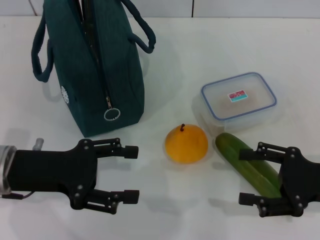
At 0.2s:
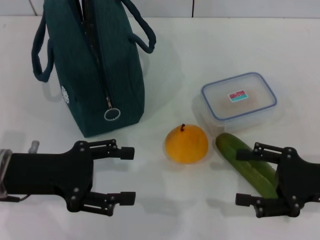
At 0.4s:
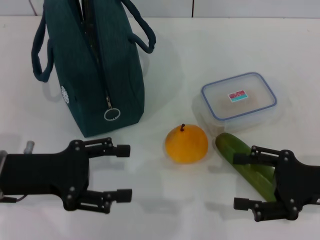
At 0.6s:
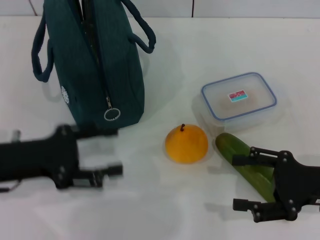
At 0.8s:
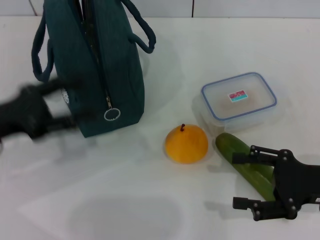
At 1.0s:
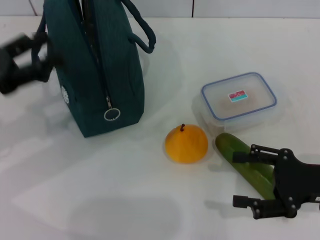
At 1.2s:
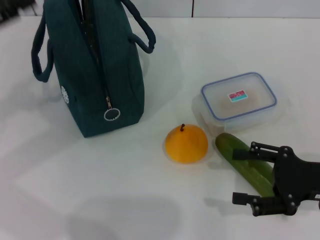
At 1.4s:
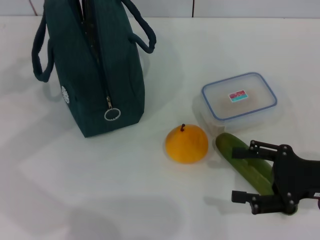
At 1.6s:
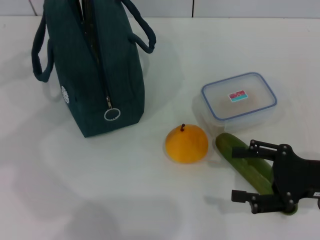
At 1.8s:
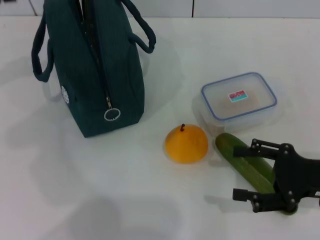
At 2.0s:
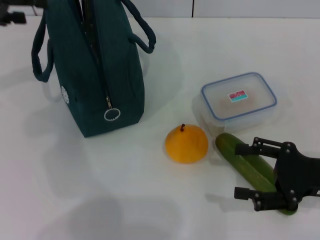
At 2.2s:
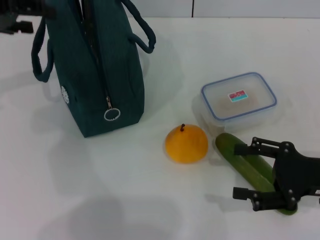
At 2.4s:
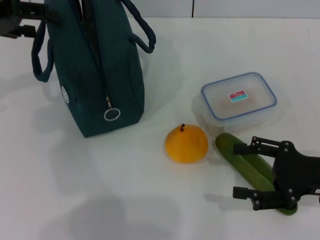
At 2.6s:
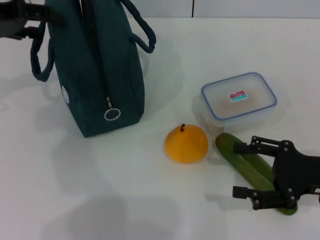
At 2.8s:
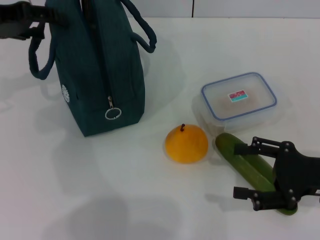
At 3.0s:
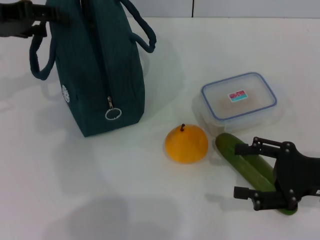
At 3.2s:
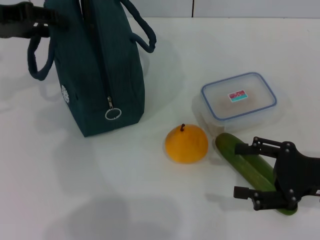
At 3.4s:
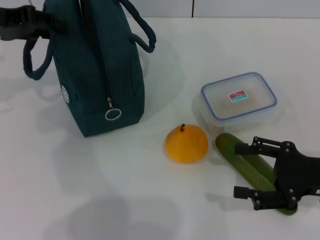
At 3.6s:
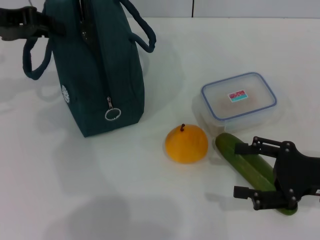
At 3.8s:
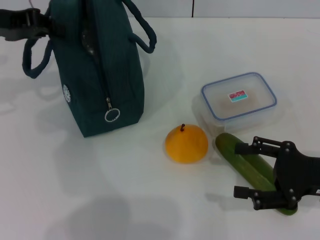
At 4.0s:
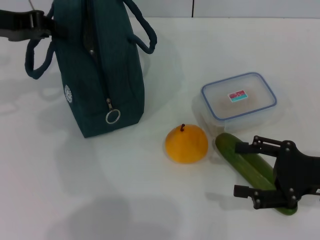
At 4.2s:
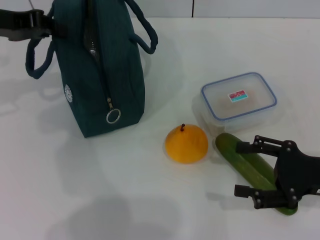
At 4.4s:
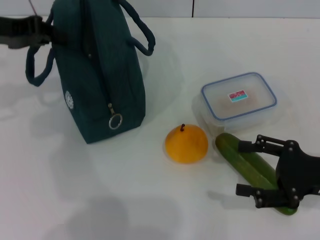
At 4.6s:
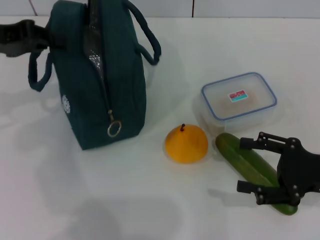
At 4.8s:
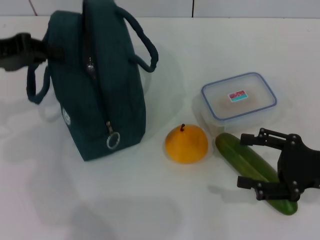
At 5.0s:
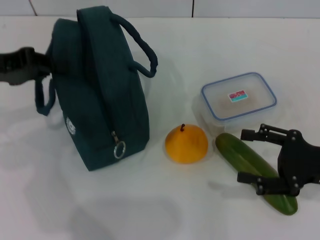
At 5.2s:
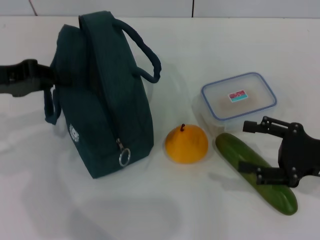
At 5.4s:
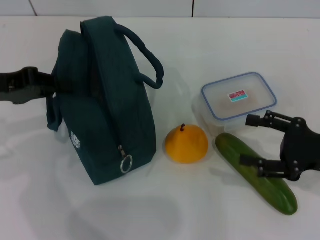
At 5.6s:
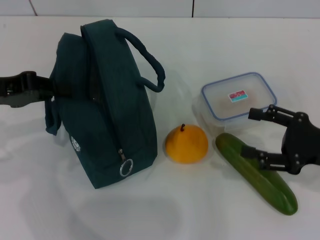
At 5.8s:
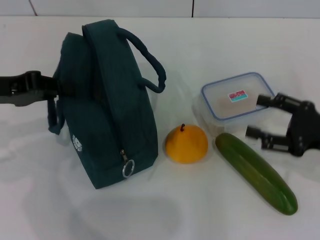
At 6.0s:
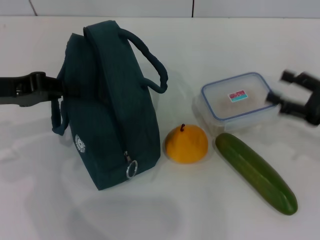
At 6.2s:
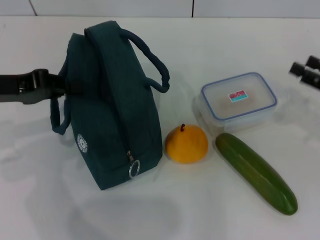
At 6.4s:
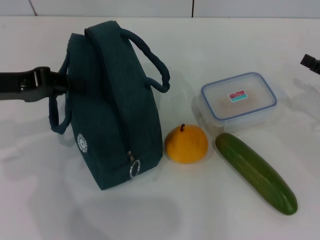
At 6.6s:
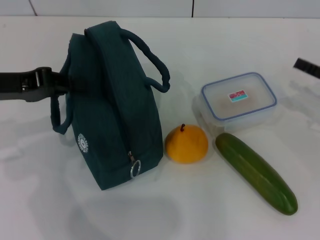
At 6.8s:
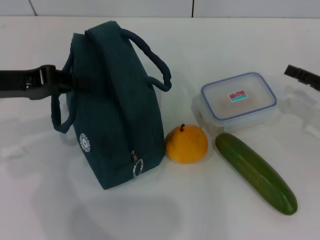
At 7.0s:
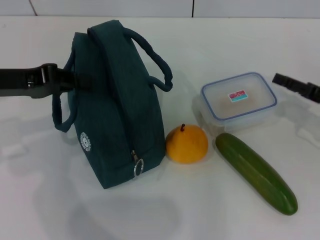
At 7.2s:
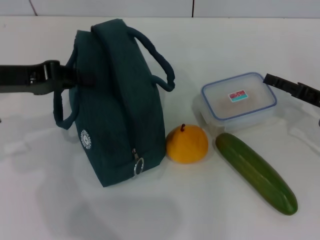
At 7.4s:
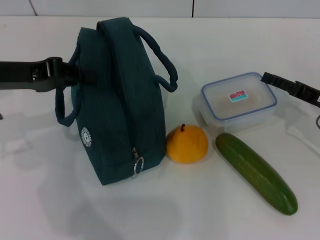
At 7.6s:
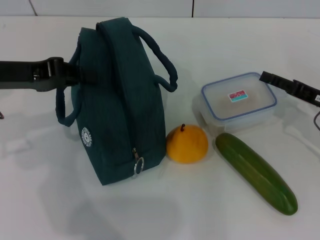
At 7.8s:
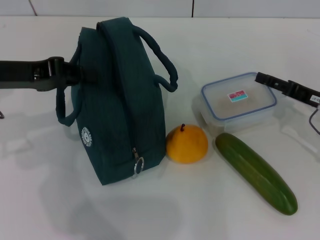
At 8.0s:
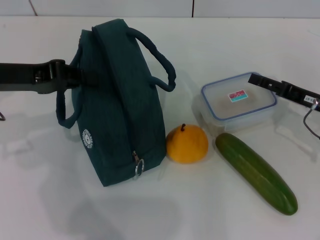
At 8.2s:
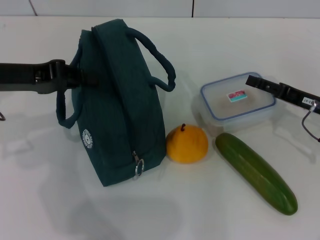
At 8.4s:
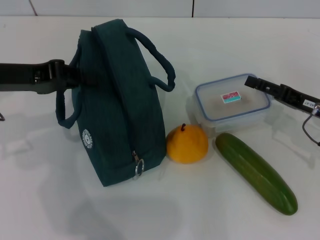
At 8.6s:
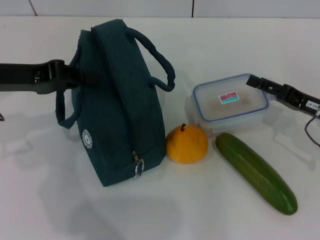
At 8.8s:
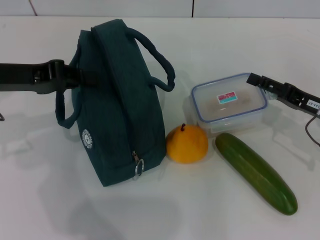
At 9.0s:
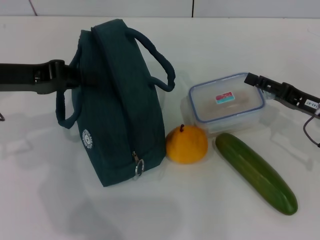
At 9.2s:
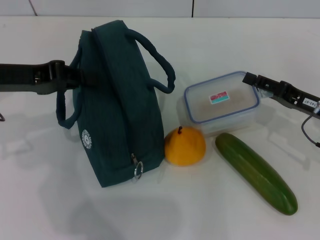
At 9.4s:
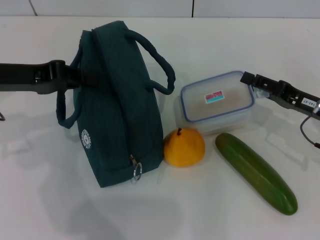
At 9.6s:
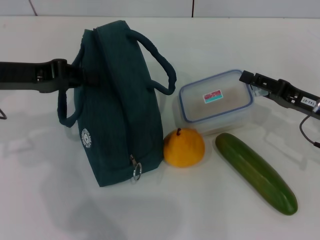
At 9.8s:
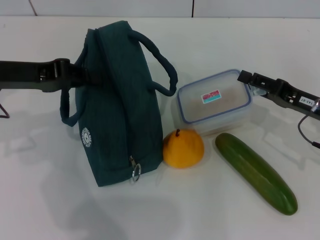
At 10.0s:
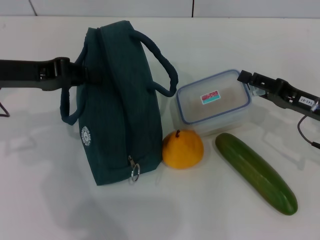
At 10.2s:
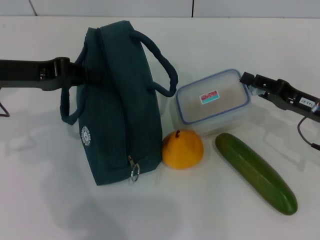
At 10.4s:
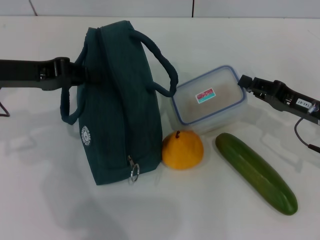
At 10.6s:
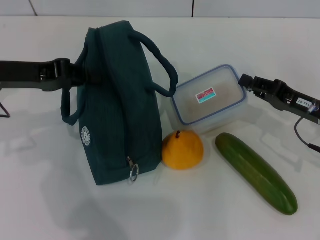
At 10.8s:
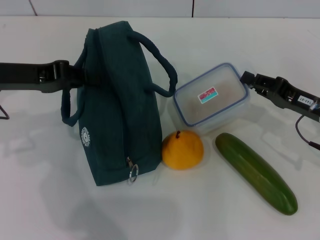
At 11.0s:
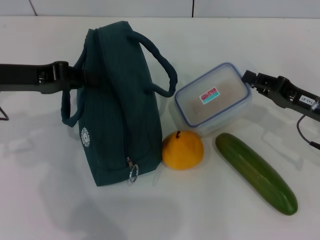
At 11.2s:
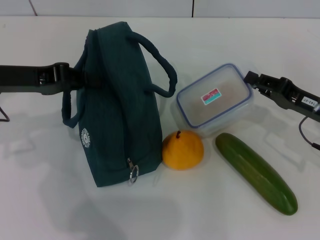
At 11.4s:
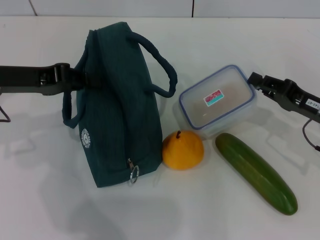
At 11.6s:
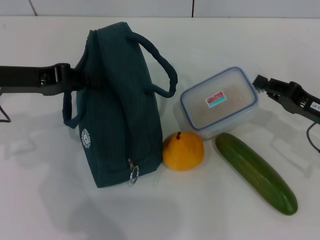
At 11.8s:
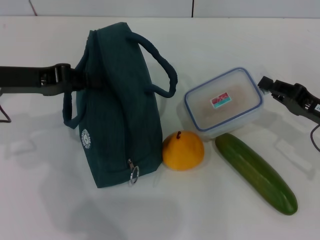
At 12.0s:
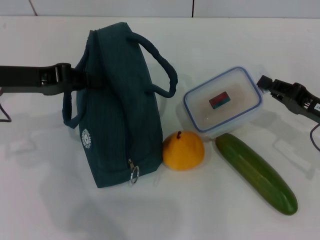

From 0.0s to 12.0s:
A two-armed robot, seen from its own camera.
Step, from 0.0s to 4.0s: Hold the lunch bag with your left hand.
Step, from 4.2s to 10.6s: Pick up the lunch box with your right hand.
From 0.0s to 1.6s: The left gripper is displaced upward, to the left and forward by about 20 cm.
From 1.6s to 3.0s: The left gripper moves approximately 5 cm.
From 3.0s to 4.4s: The left gripper closes its fingers.
From 4.4s to 6.0s: The right gripper ends up some 5 cm from where it was, while the left gripper heads backward, covering approximately 5 cm.
From 6.0s to 7.6s: The right gripper ends up some 5 cm from where it was.
From 7.6s to 9.0s: The grippers stay close to where they were, moving slightly.
From 9.0s to 10.4s: The right gripper closes.
From 10.4s to 12.0s: The grippers make only small movements.

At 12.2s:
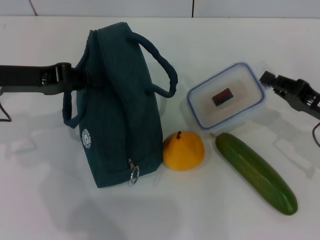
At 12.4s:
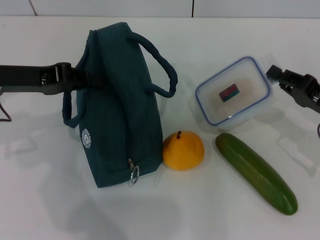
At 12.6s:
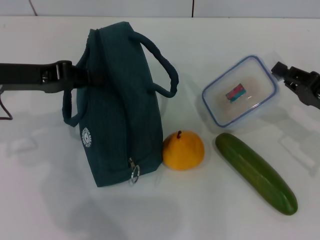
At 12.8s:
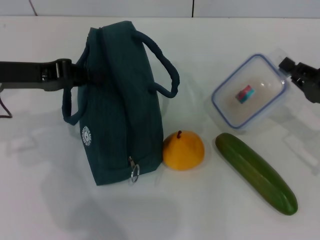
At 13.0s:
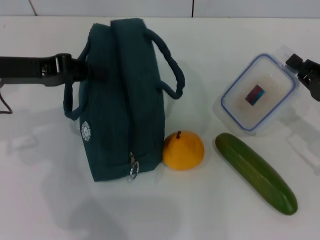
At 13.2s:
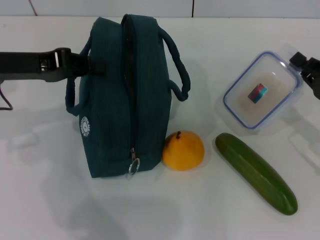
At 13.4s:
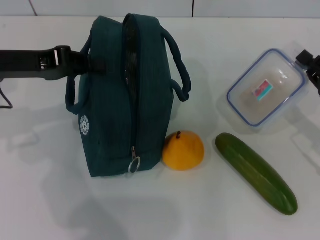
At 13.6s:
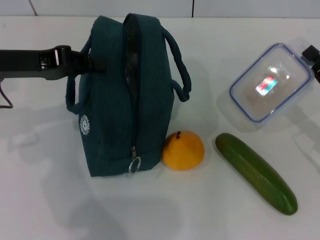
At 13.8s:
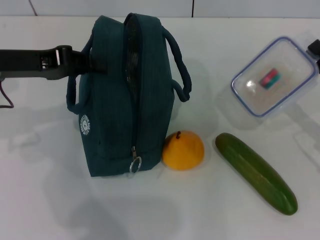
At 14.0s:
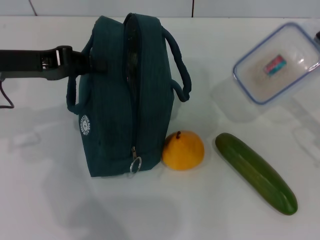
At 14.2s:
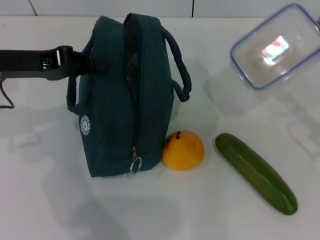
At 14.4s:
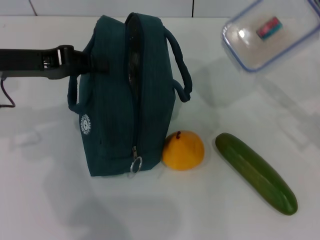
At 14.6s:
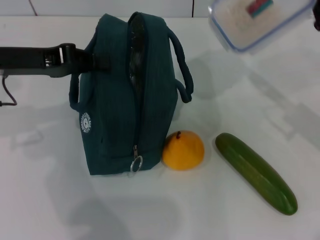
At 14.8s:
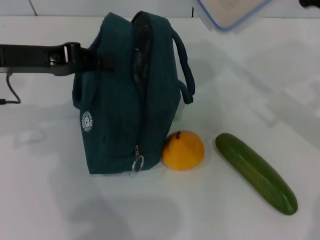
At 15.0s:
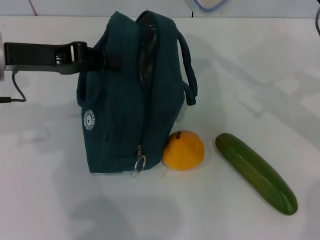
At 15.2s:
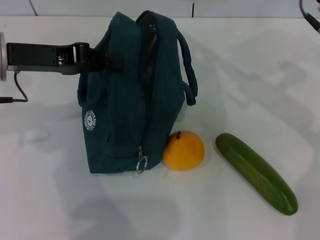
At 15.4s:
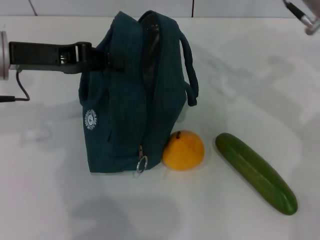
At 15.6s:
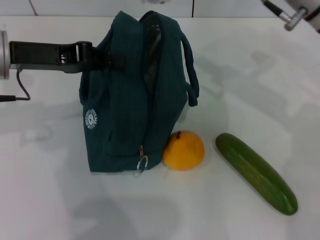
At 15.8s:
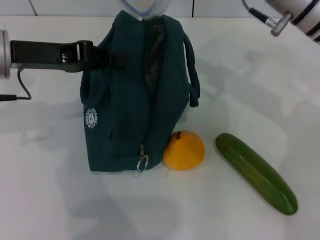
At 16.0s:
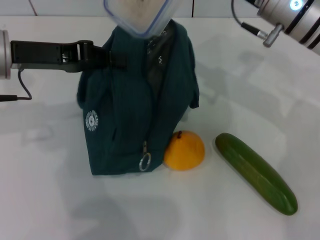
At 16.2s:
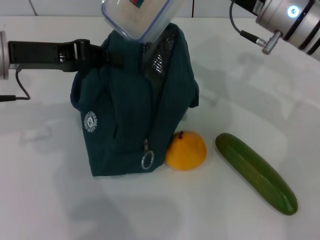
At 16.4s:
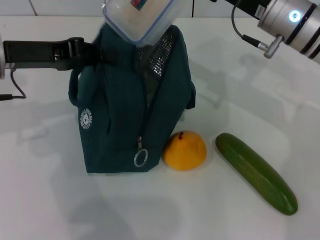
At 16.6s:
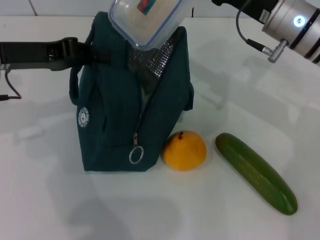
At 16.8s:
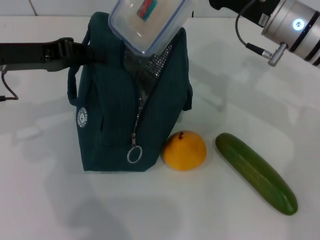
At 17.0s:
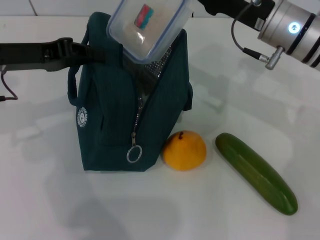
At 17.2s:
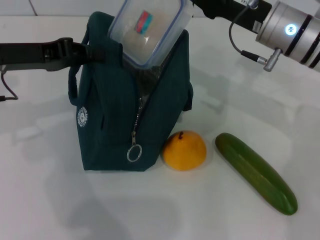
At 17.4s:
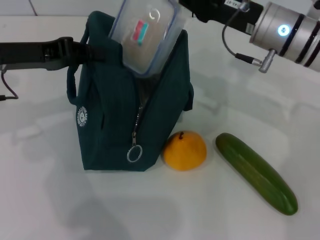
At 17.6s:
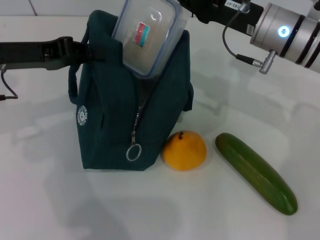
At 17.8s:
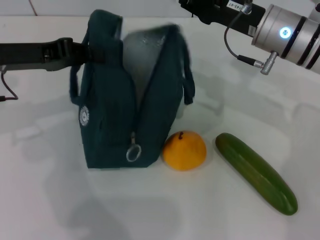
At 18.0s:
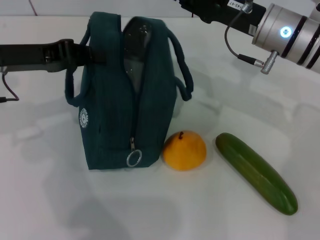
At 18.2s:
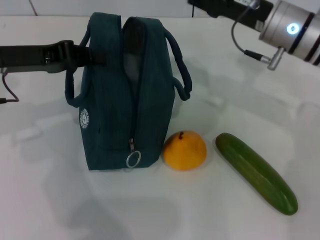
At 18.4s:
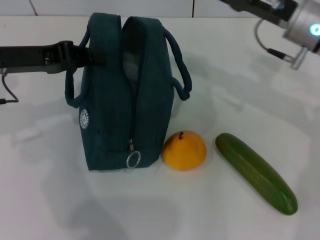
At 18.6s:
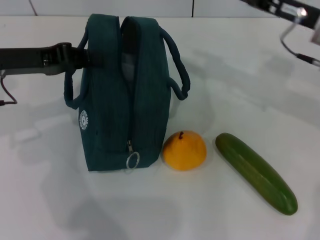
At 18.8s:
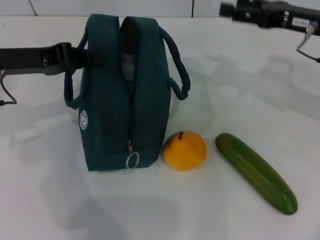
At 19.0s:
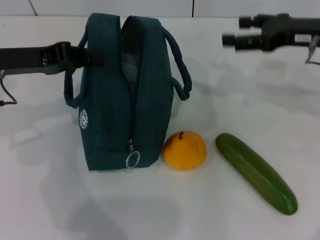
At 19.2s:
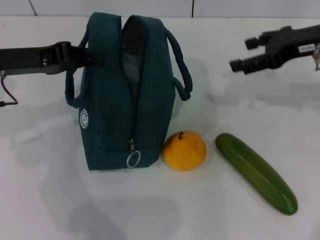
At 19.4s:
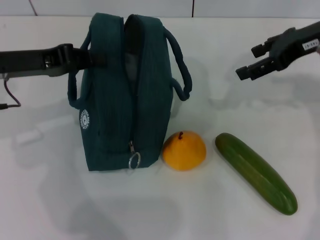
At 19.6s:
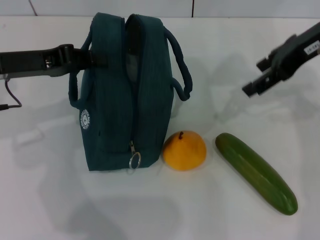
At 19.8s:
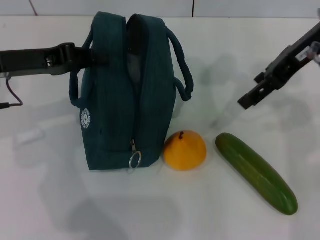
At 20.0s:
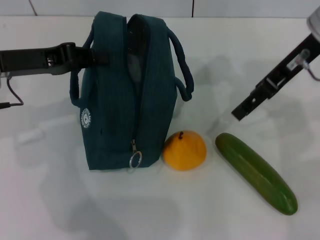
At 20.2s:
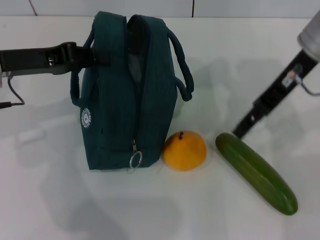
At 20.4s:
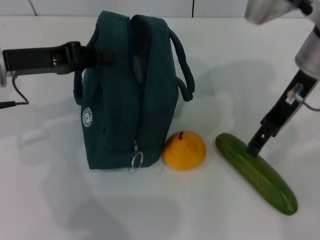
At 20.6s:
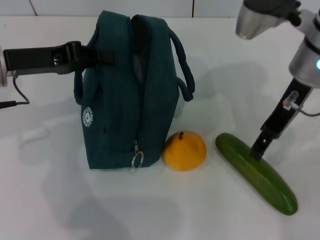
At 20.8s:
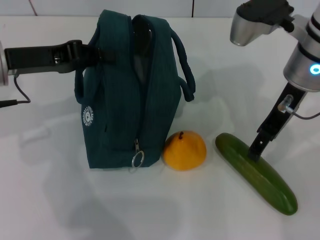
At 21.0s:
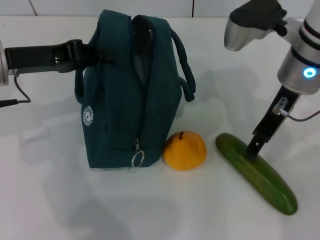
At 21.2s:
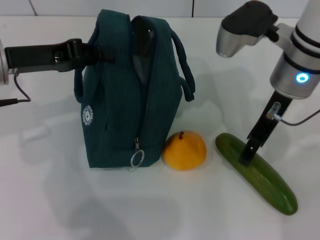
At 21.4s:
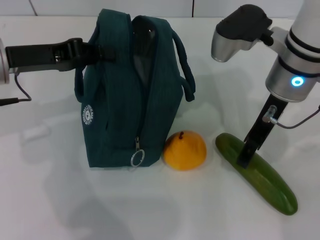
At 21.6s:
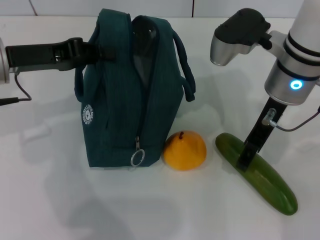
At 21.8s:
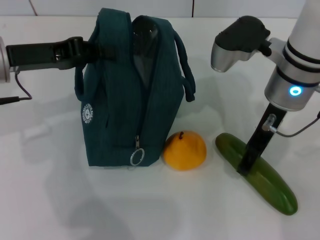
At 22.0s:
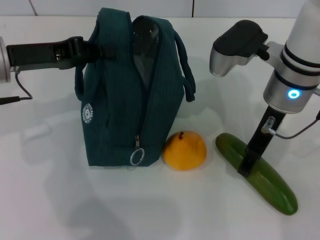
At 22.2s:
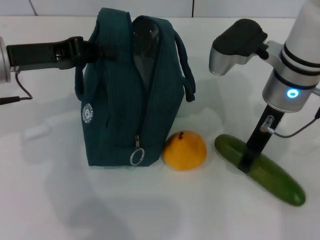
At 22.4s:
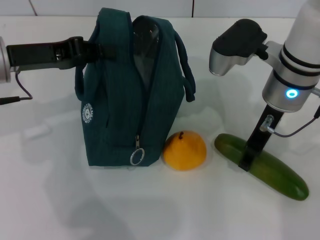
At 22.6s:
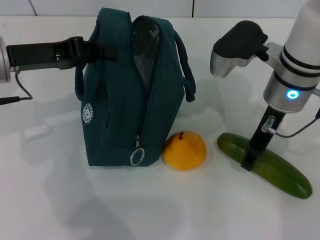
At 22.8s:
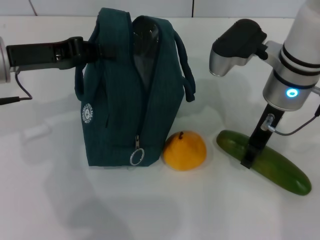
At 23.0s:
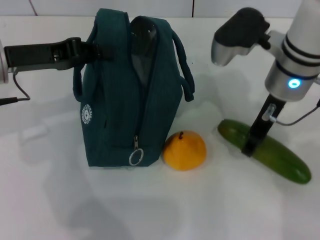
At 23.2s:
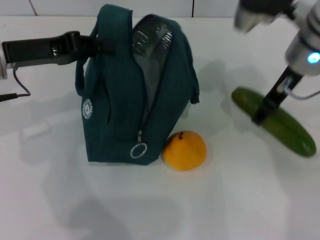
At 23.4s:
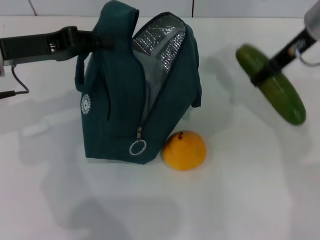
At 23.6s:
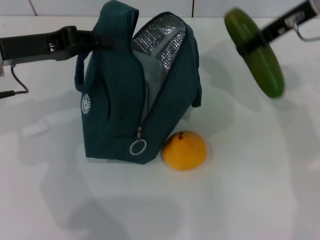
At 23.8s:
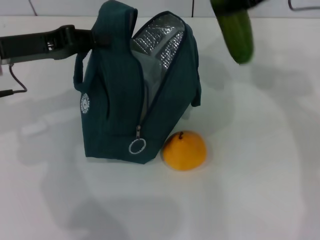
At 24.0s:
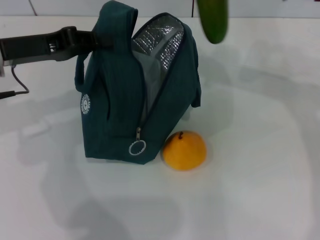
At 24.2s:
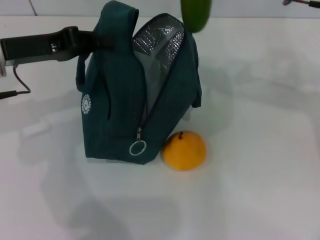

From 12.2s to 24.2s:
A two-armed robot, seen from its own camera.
Step, from 12.2s to 18.2s: Place the lunch box into the lunch bag with your right hand.
Step, from 18.4s to 22.6s: Pick up the cucumber with your right hand.
From 12.2s to 13.8s: There are only small adjustments of the grippers.
From 13.8s to 15.2s: The right gripper travels upward, to the left and forward by some 20 cm.
From 15.2s to 16.6s: The right gripper moves to the left, some 5 cm.
From 16.6s to 18.2s: The right gripper opens.
From 18.2s to 19.8s: The right gripper moves upward, approximately 10 cm, and opens its fingers.
From 19.8s to 21.2s: The right gripper moves downward and to the left, approximately 10 cm.
From 21.2s to 22.6s: The grippers move only a little.
From 22.6s to 24.2s: The right gripper heads upward and to the right, covering approximately 15 cm.
